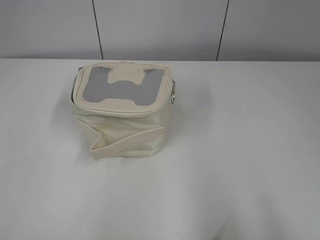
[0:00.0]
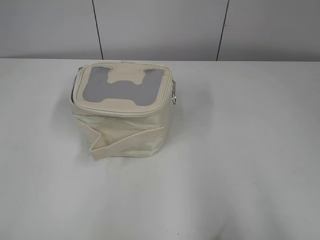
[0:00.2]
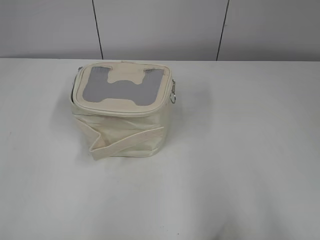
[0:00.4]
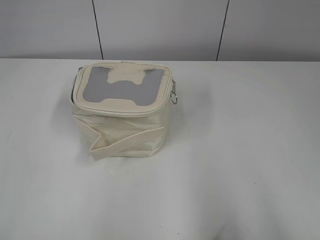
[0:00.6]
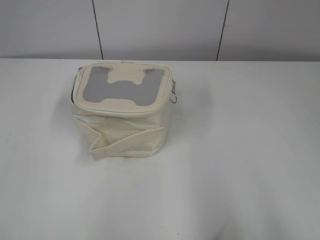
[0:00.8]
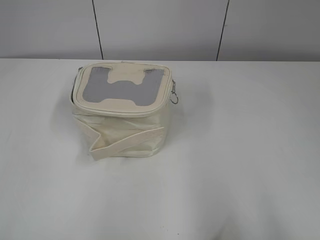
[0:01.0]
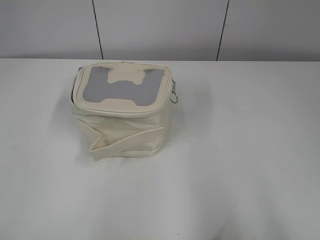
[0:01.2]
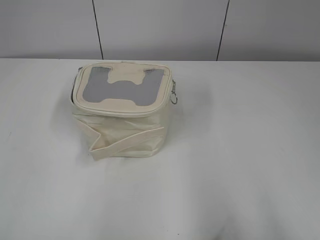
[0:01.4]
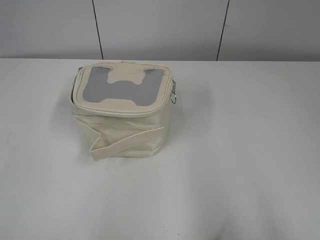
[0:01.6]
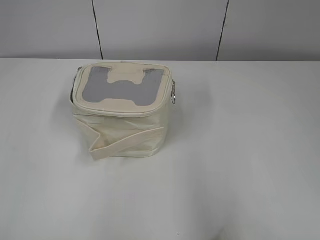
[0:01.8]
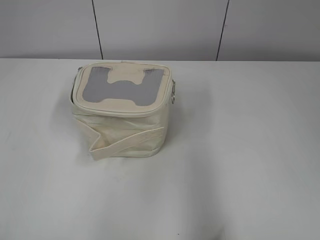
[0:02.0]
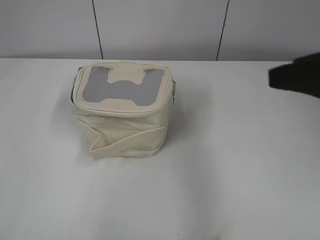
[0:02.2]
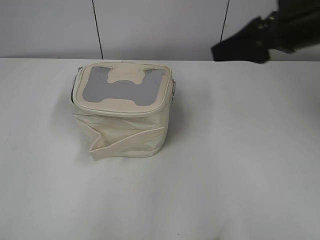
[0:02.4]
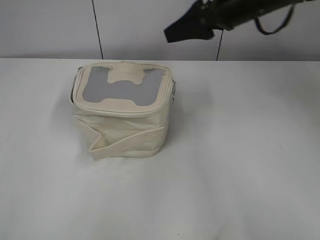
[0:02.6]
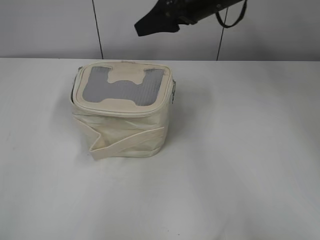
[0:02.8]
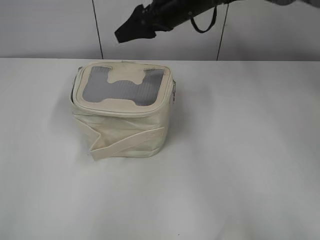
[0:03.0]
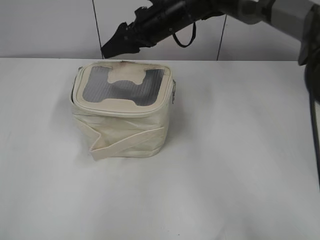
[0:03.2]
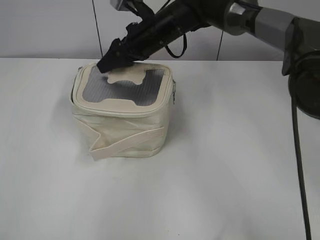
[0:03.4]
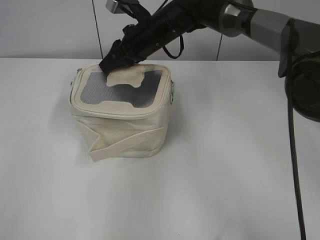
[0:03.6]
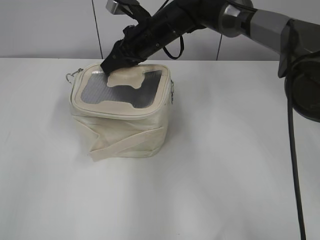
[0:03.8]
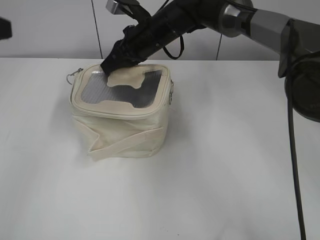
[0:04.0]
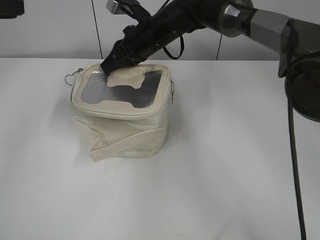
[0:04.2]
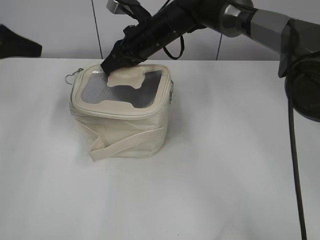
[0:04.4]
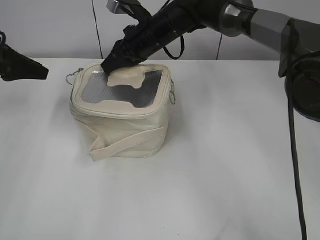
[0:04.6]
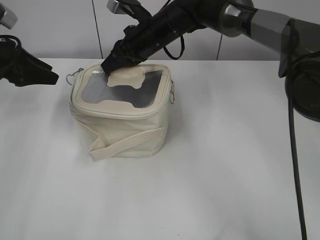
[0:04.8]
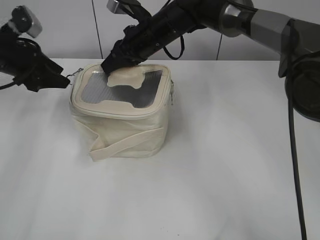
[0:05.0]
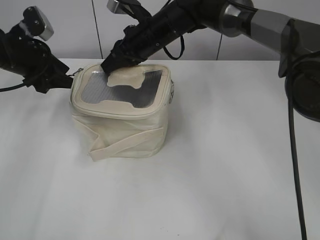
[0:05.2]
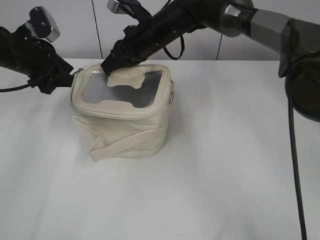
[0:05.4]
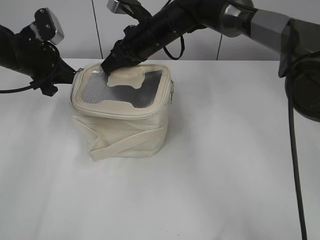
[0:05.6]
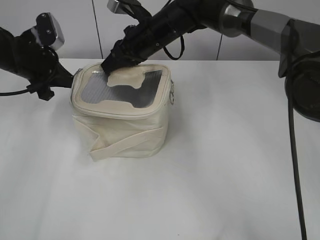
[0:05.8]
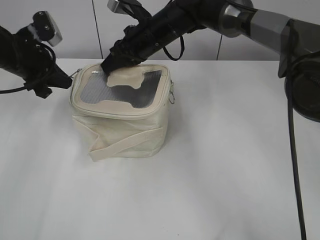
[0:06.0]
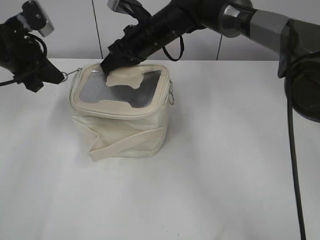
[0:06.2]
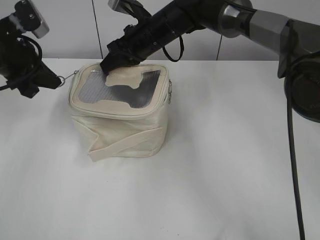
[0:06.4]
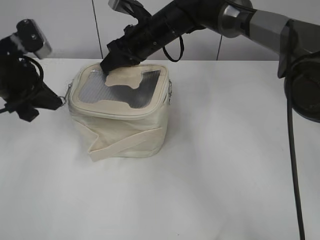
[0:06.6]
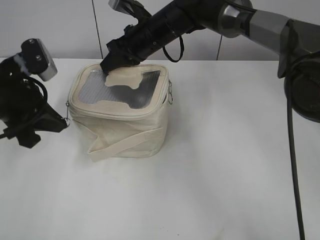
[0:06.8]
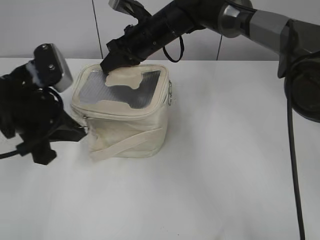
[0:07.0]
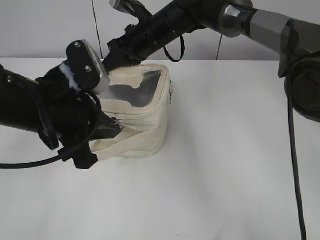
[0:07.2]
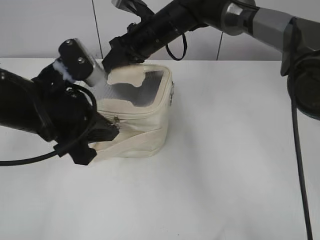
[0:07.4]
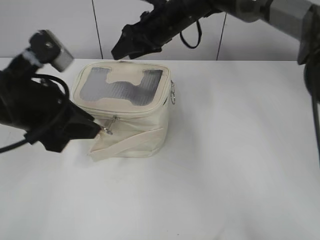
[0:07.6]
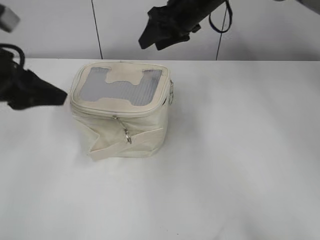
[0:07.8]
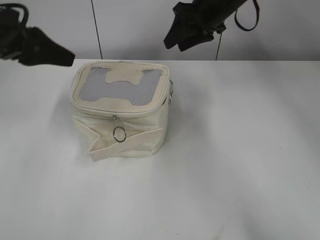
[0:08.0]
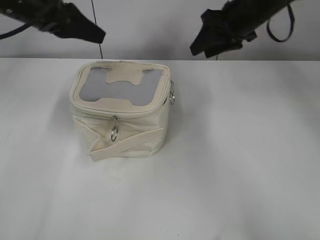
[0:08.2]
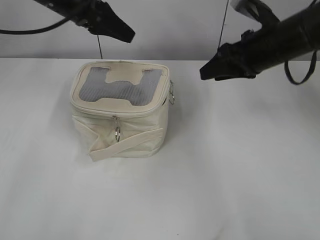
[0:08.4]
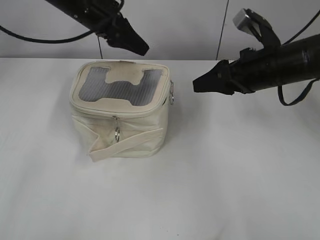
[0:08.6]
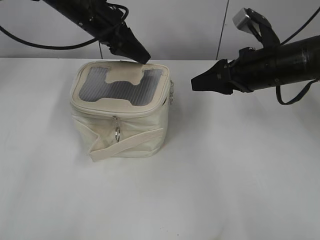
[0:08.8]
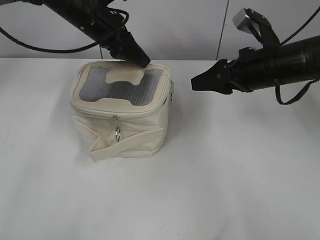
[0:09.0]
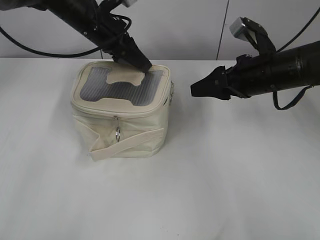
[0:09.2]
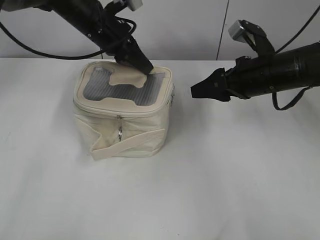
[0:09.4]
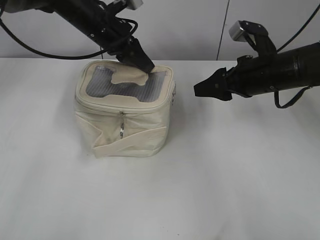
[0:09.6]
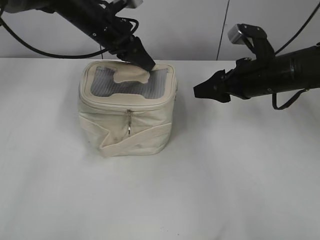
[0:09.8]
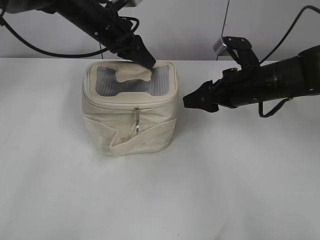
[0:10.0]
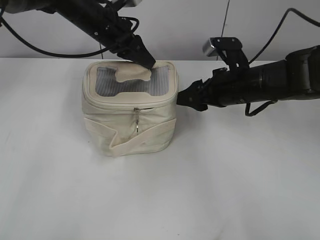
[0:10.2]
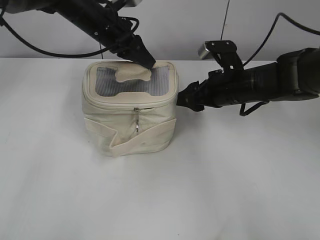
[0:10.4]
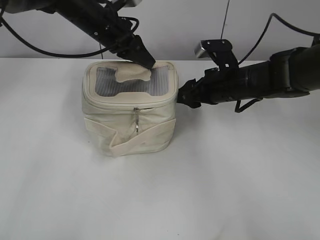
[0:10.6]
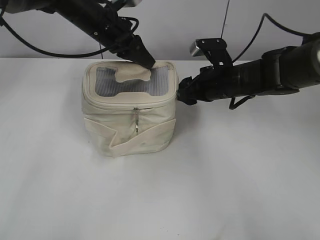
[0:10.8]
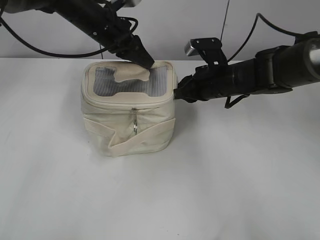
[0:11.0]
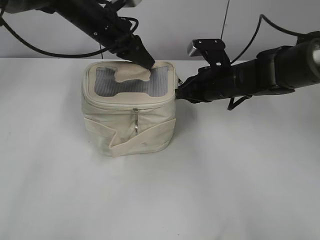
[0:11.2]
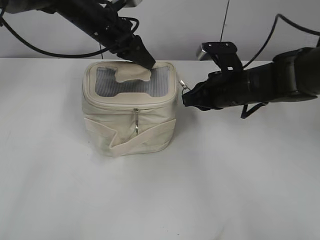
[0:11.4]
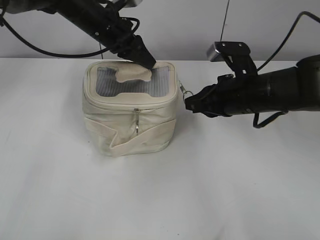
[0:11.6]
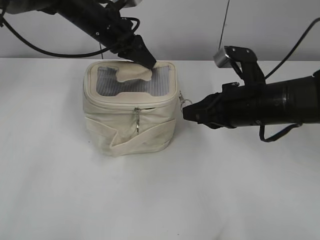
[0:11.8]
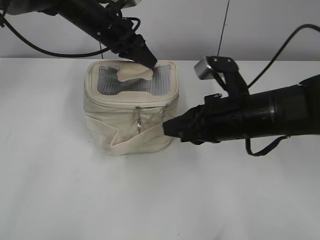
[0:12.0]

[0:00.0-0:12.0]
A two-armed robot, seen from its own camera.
Step, 0:00.0 to 0:07.4: Hold the bag with your right hand.
0:01.6 to 0:03.0: The right gripper moves forward and to the left, roughly 50 cm.
0:03.0 to 0:04.4: The right gripper travels downward and to the left by roughly 10 cm, and closes, while the left gripper goes about 35 cm forward, and opens.
0:04.4 to 0:06.0: The left gripper travels to the right and downward by some 10 cm, and closes.
0:06.0 to 0:07.6: The right gripper opens its fingers. Meanwhile the left gripper moves backward and to the right, roughly 20 cm, and opens.
0:07.6 to 0:09.0: The right gripper moves to the right and backward, roughly 20 cm. Meanwhile the left gripper goes about 20 cm forward, and opens up.
0:09.0 to 0:10.4: The left gripper closes up, while the right gripper heads downward, covering about 5 cm.
0:10.4 to 0:12.0: The right gripper travels backward by roughly 10 cm, and closes.

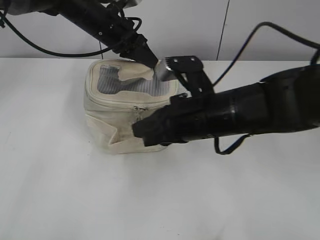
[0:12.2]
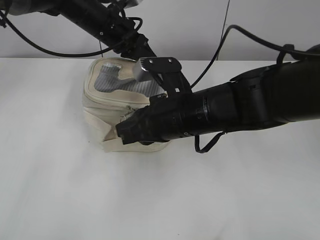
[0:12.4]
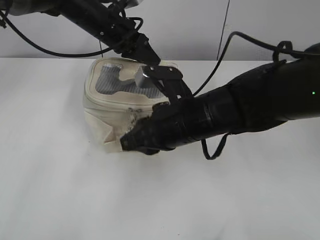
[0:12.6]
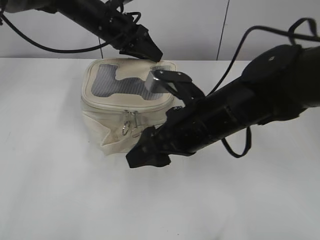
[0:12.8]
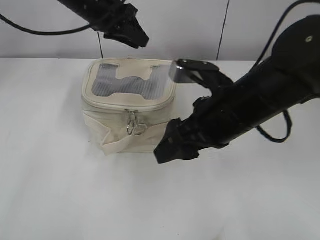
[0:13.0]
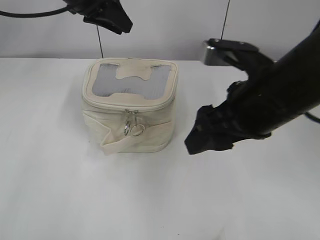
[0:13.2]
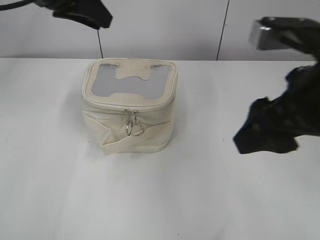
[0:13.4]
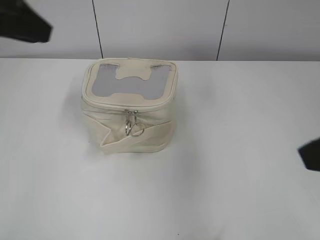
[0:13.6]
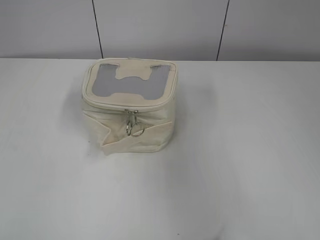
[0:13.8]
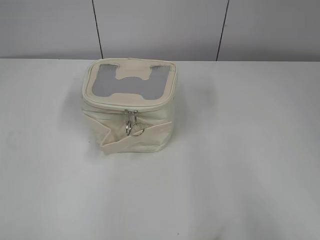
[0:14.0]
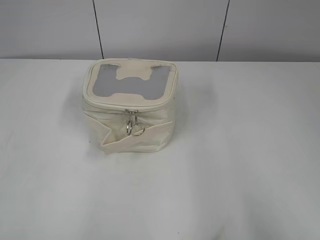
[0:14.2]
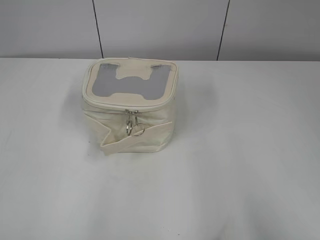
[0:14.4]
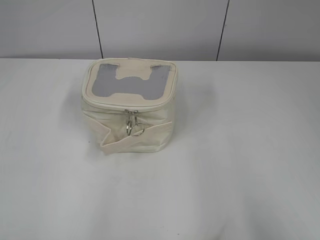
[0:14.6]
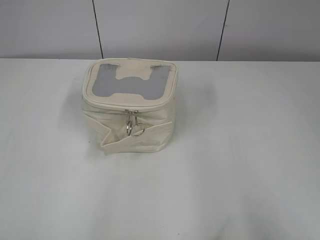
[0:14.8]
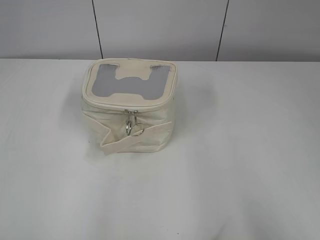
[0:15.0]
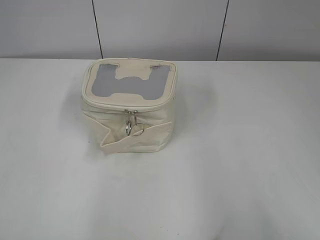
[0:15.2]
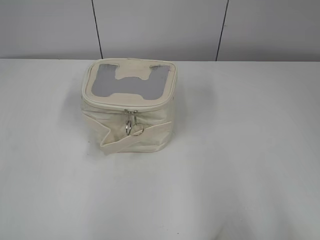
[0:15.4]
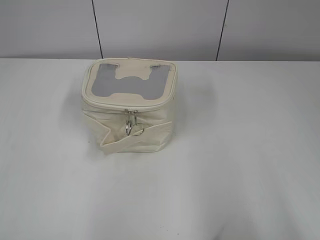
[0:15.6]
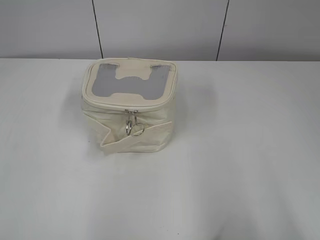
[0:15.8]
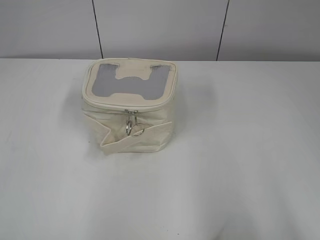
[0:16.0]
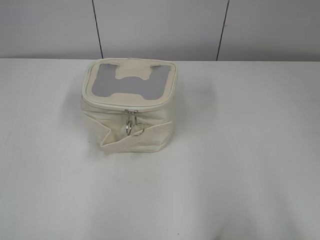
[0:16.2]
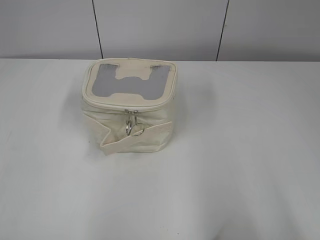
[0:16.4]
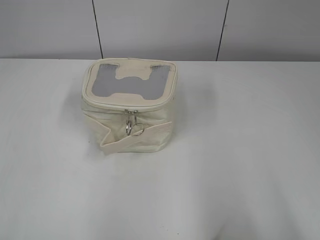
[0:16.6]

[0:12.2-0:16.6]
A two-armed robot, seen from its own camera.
0:12.2 to 0:13.6: The right gripper shifts approximately 20 cm upward, to the right and backward, and opens up; the left gripper moves backward, upward and to the left, about 25 cm, and opens its fingers.
0:13.6 to 0:15.2: The left gripper moves backward and to the left, some 25 cm, and opens its fingers. Meanwhile the right gripper goes roughly 15 cm backward and to the right.

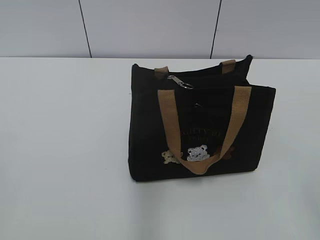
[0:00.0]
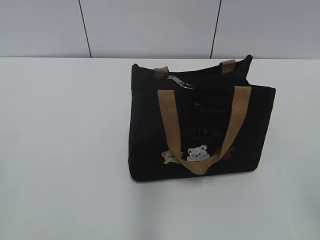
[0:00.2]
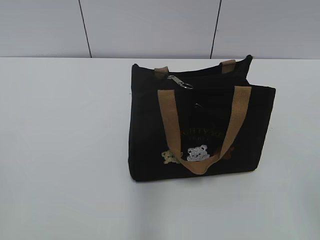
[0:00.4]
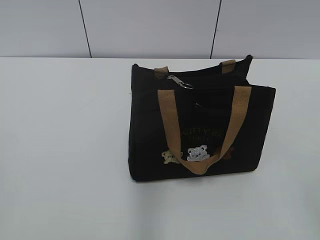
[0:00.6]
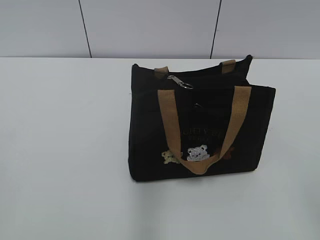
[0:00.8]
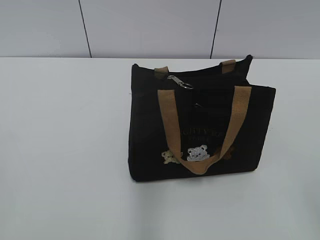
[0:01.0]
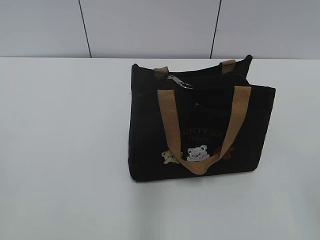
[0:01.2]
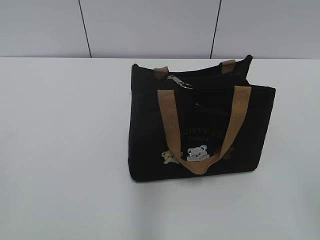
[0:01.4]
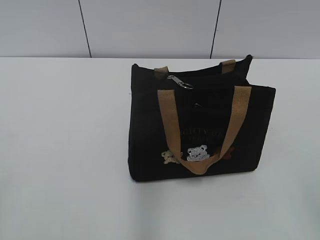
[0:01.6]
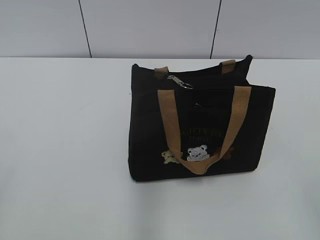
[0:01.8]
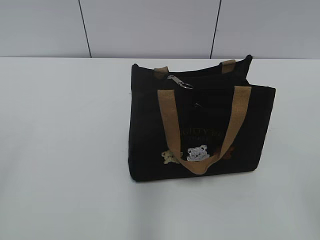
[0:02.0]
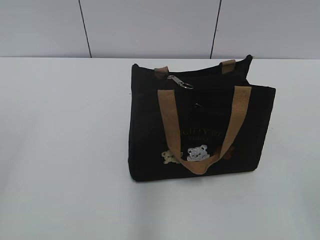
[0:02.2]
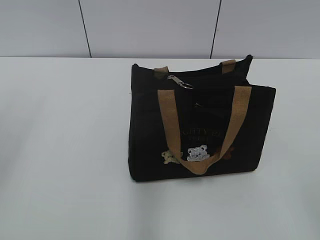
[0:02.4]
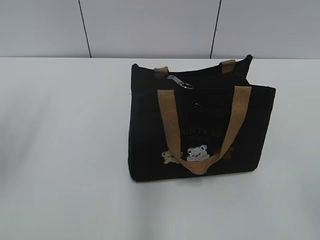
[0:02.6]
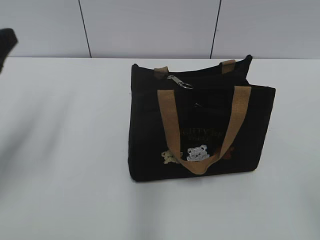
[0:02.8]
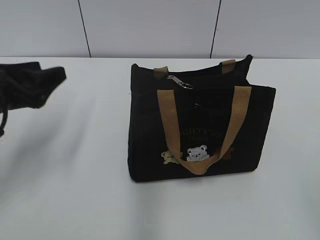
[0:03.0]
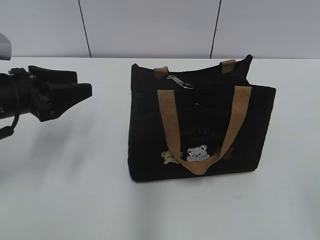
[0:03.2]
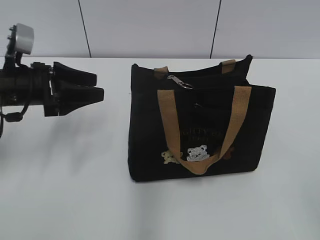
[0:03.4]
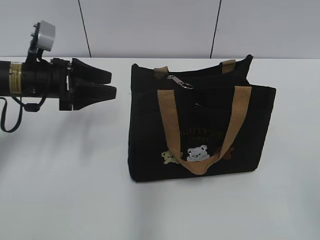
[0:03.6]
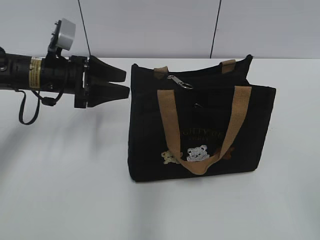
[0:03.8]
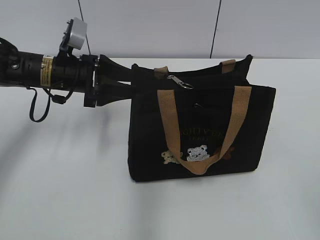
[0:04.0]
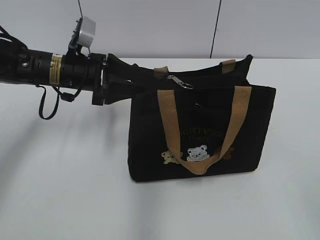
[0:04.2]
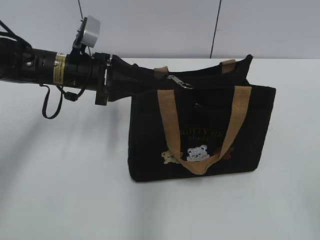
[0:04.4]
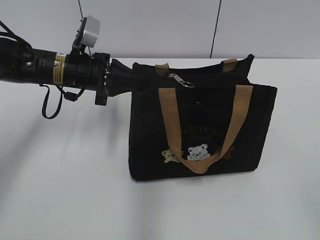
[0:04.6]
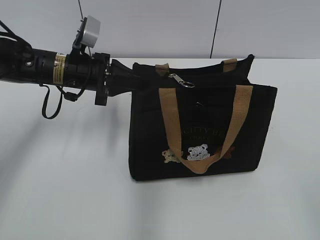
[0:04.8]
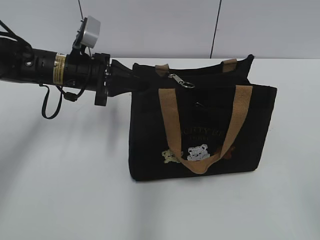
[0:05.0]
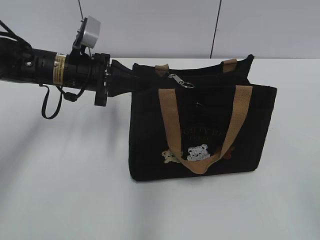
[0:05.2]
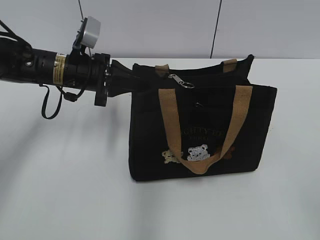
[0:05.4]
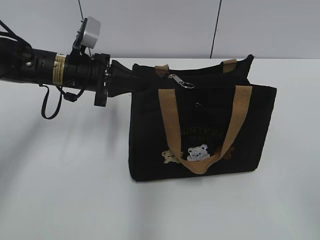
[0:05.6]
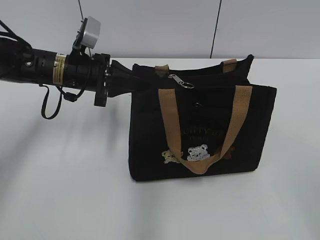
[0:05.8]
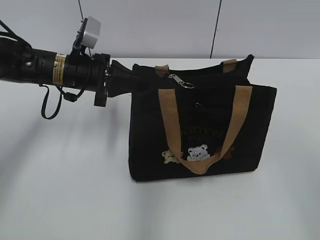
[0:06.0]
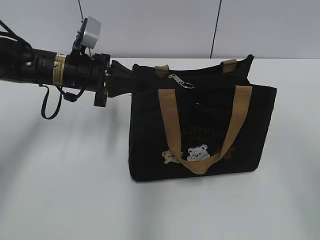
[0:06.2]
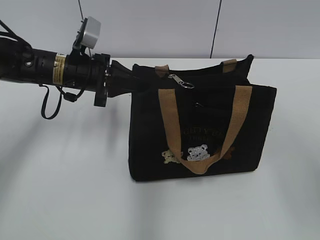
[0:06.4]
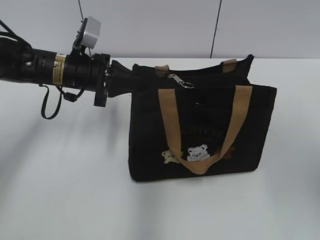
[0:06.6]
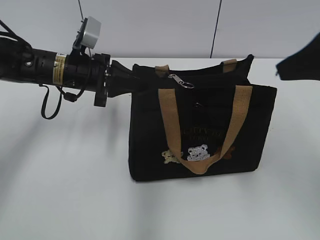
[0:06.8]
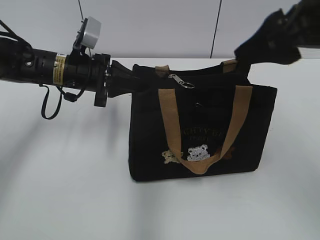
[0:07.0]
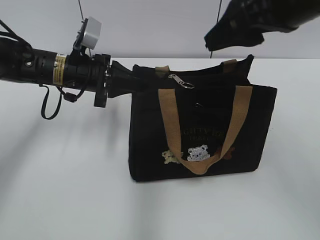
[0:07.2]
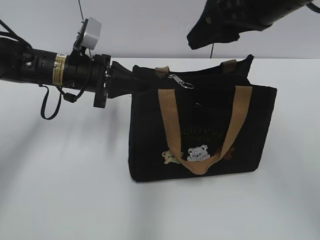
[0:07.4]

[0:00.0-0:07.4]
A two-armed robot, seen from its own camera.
0:01.4 to 0:03.0: The left gripper travels forward by about 25 cm, and opens up.
0:03.0 to 0:04.4: The left gripper heads forward and to the right, covering some 15 cm.
0:04.4 to 0:06.0: The left gripper closes. Meanwhile the right gripper shifts by roughly 5 cm.
0:06.0 to 0:07.4: The right gripper heads forward and to the left, covering roughly 30 cm.
